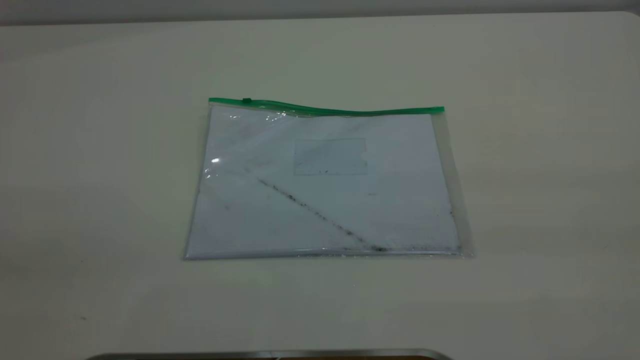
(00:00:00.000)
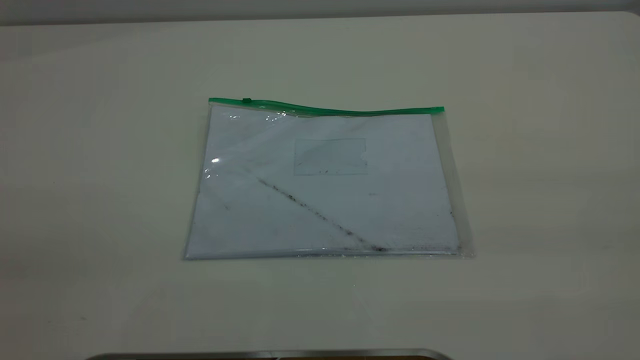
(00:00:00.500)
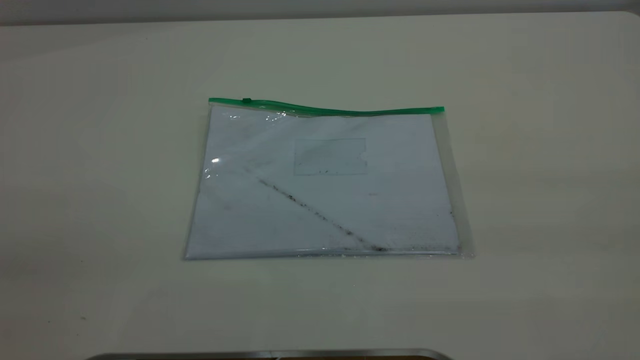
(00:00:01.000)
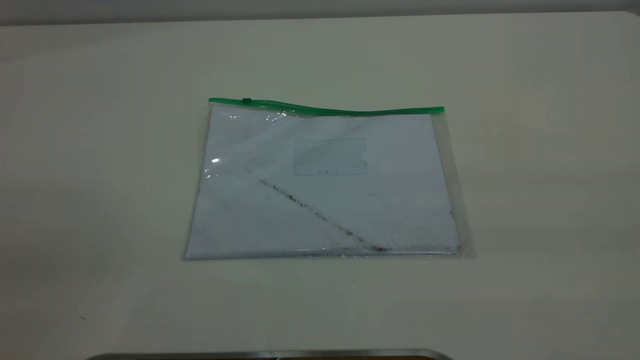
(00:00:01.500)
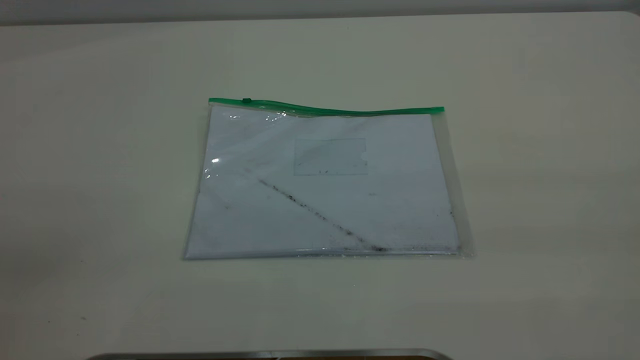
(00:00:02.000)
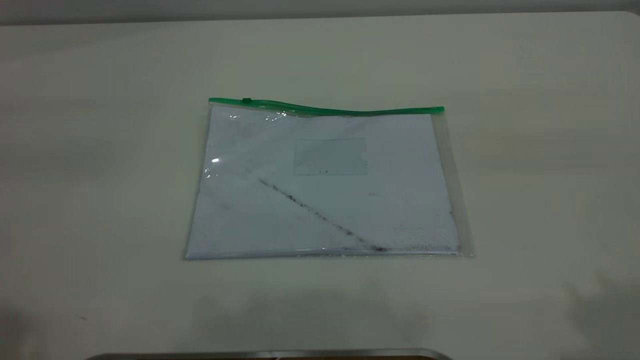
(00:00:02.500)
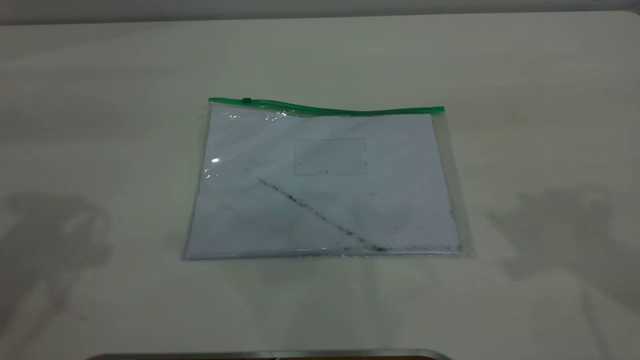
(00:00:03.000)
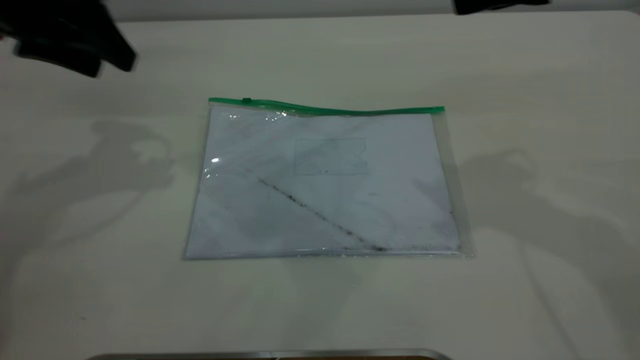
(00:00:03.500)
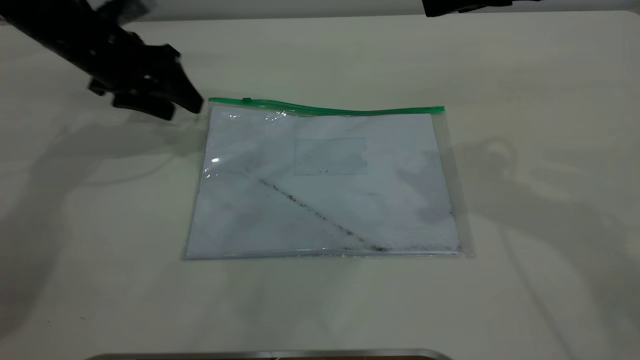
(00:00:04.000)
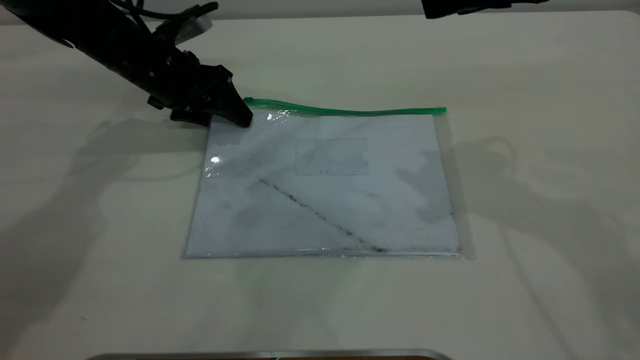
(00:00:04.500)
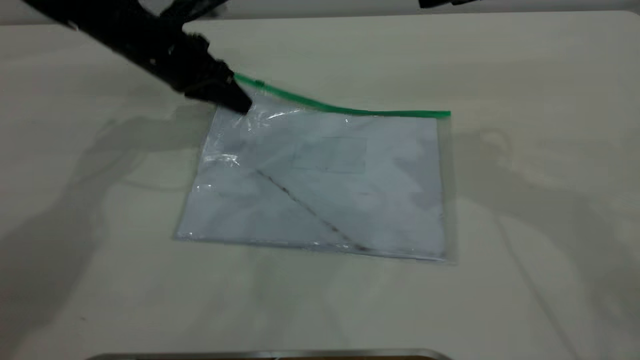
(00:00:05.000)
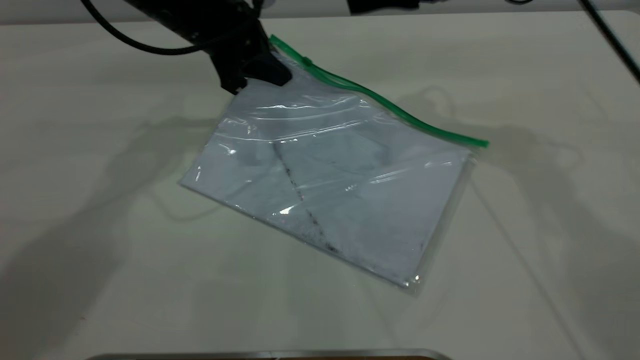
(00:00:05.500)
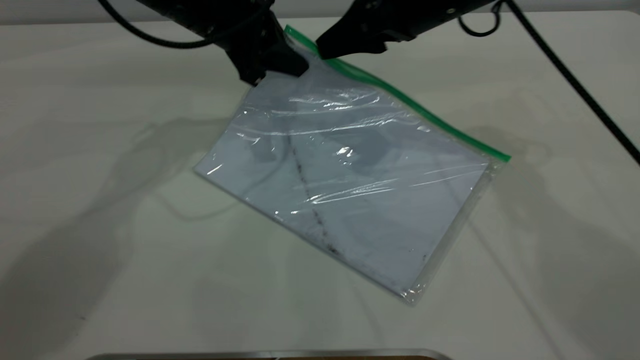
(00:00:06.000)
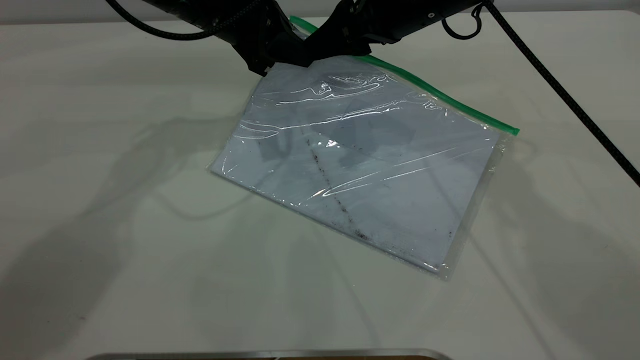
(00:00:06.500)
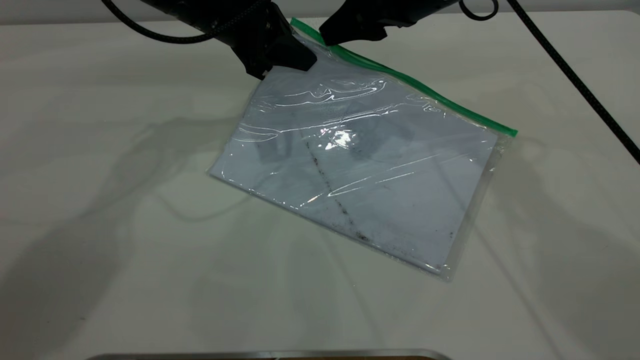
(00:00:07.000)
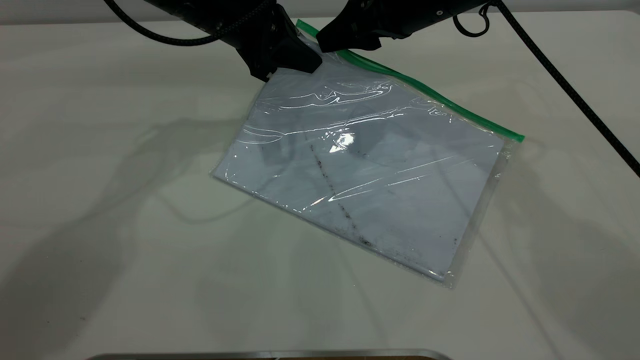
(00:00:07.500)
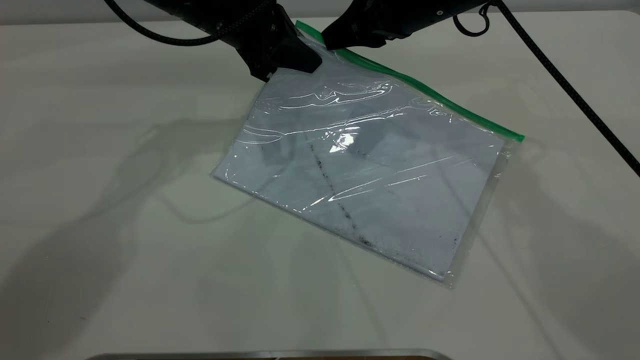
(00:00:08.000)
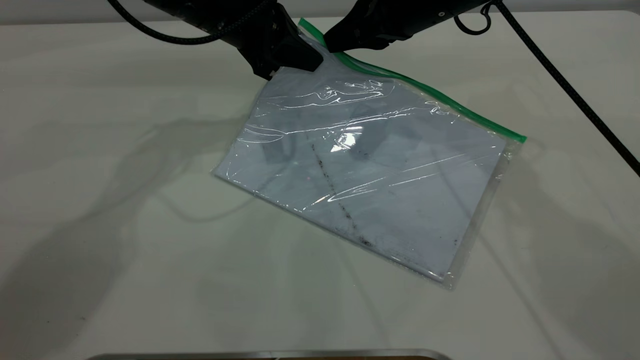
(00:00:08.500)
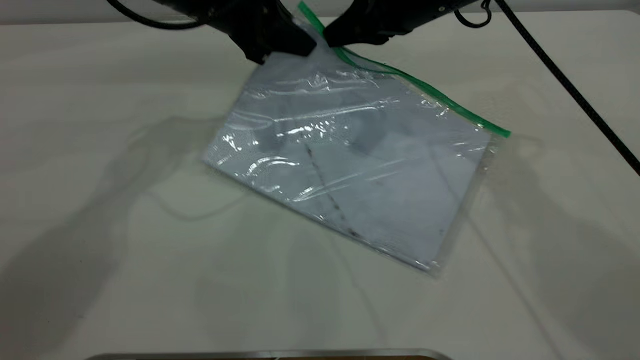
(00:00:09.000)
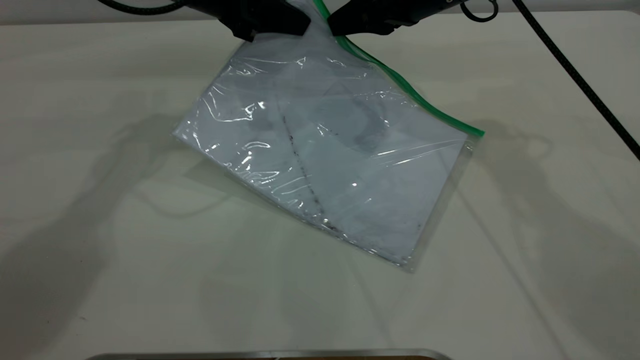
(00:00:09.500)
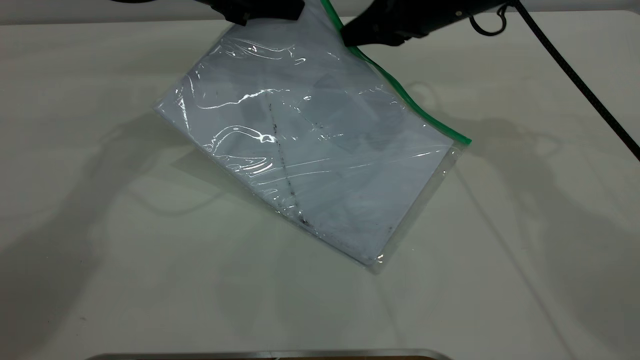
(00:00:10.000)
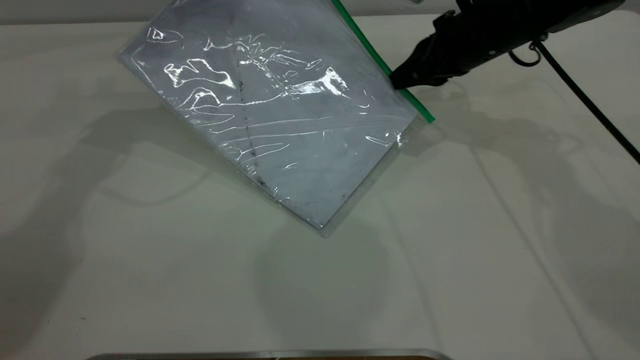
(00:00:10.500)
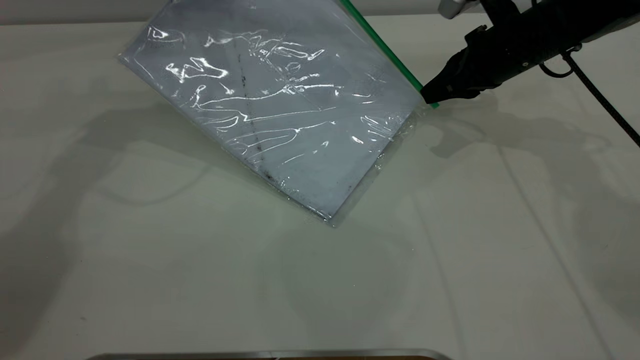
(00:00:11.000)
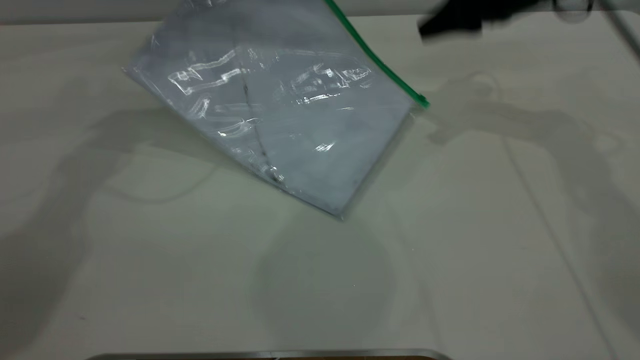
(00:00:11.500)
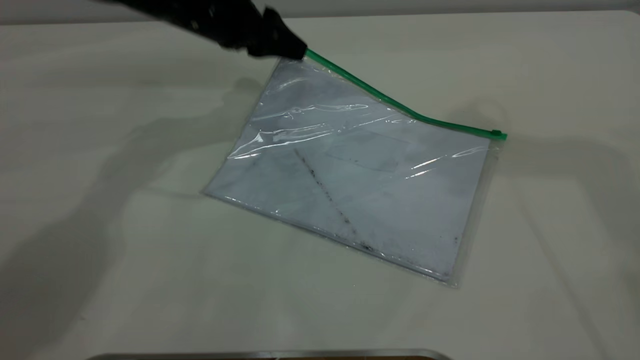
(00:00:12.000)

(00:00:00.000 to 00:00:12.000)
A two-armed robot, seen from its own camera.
Step, 00:00:00.000 - 00:00:05.000: Pick up the transparent plastic bag with the left gripper.
Step, 00:00:05.500 - 00:00:11.000: Pulling up the zipper on the transparent plastic bag with the right gripper to close it.
00:00:00.000 - 00:00:02.000: Both grippers stay about where they are.
00:00:02.000 - 00:00:04.000: The left gripper moves forward and downward, approximately 50 cm.
00:00:04.000 - 00:00:06.000: The left gripper shifts some 10 cm to the right, and closes. Meanwhile the right gripper heads forward, downward and to the left, covering some 15 cm.
00:00:06.000 - 00:00:08.000: The right gripper closes.
00:00:08.000 - 00:00:10.000: The left gripper changes place by roughly 5 cm.
00:00:10.000 - 00:00:12.000: The left gripper opens up; the right gripper shifts about 25 cm upward, and opens up.
